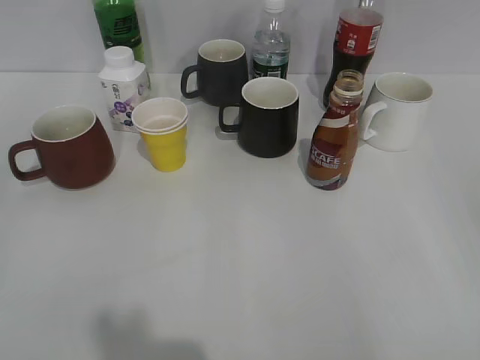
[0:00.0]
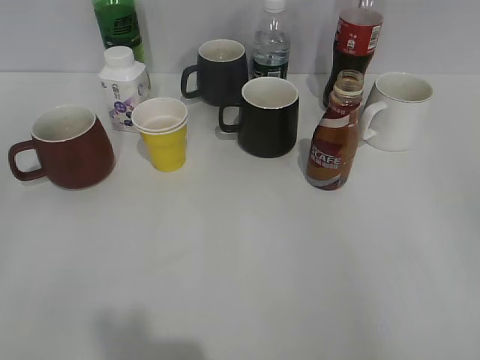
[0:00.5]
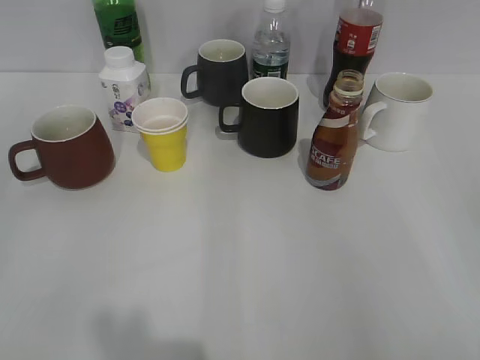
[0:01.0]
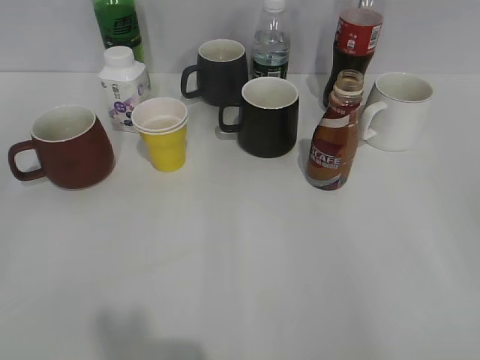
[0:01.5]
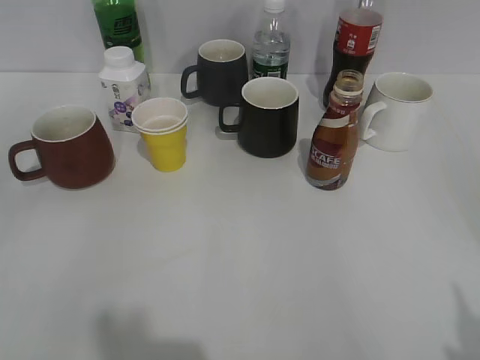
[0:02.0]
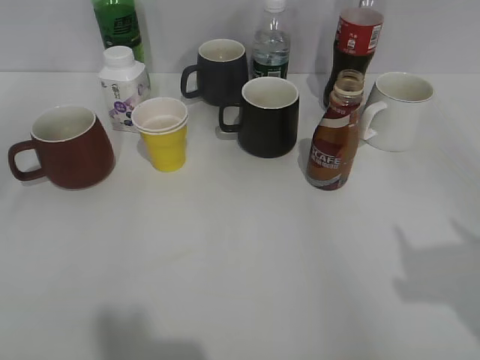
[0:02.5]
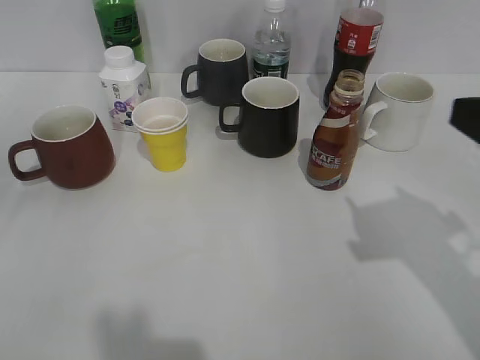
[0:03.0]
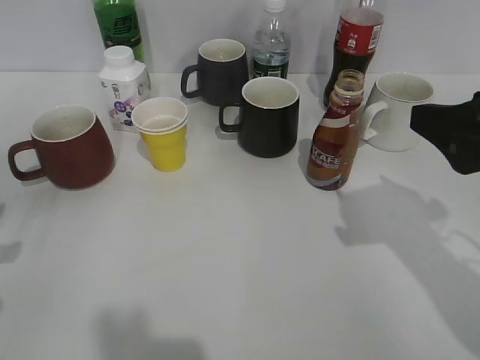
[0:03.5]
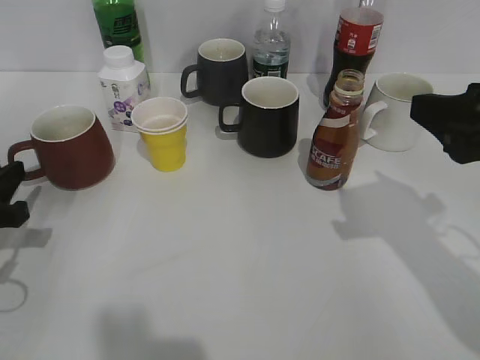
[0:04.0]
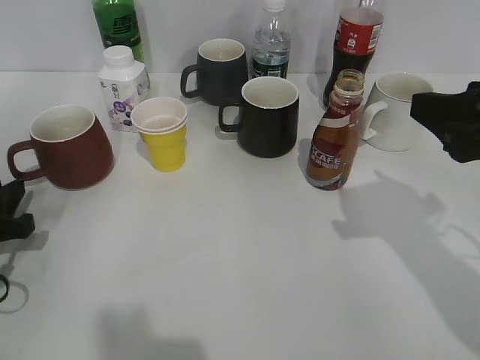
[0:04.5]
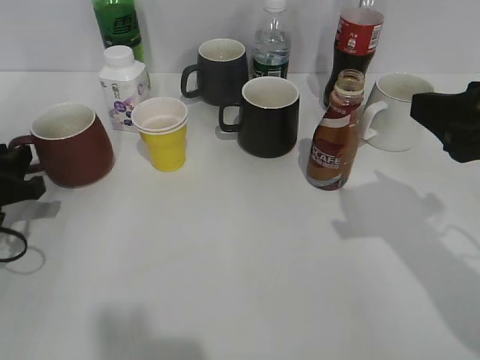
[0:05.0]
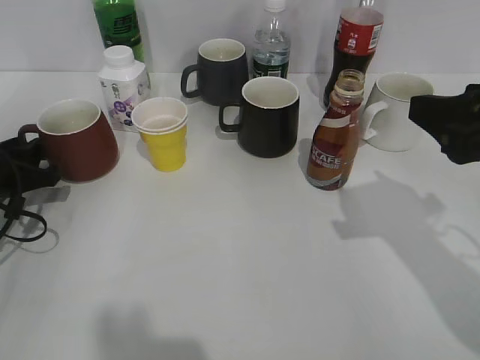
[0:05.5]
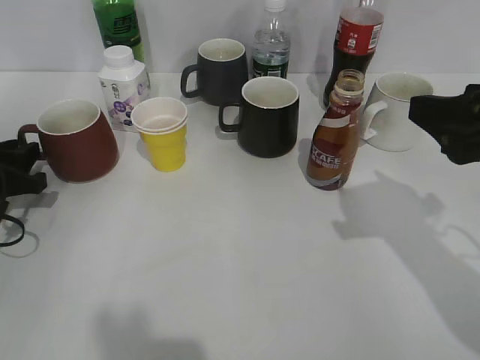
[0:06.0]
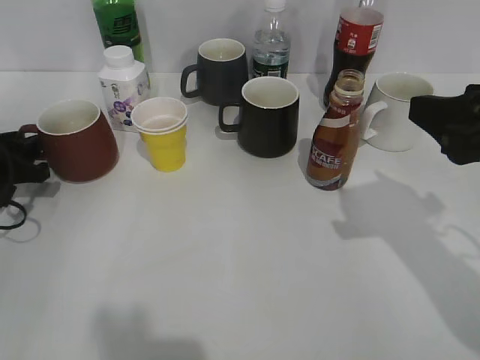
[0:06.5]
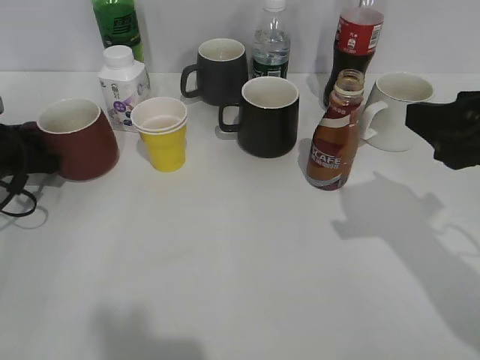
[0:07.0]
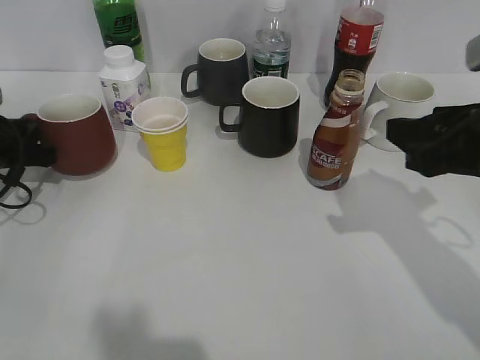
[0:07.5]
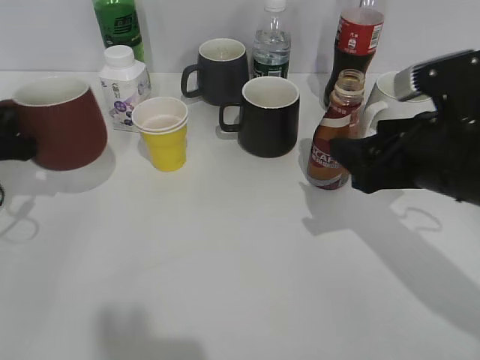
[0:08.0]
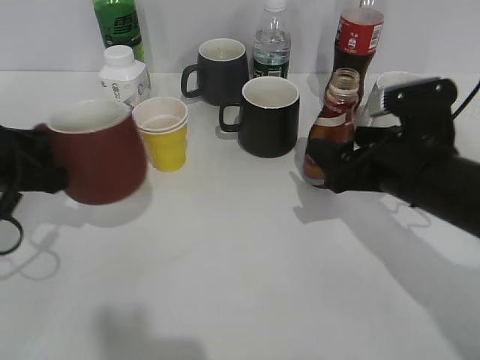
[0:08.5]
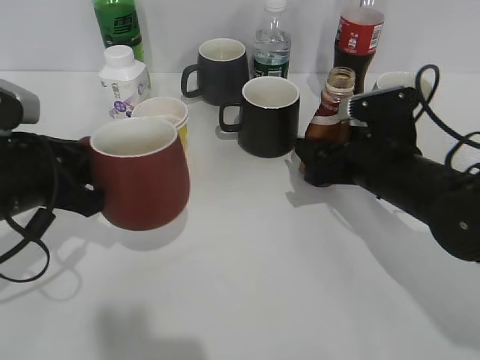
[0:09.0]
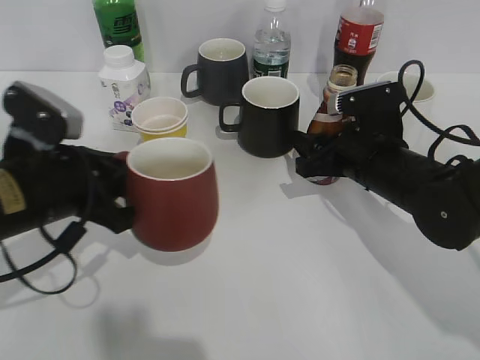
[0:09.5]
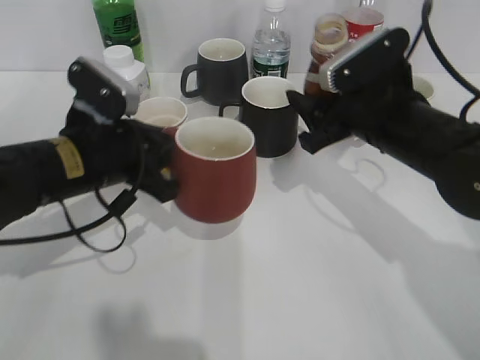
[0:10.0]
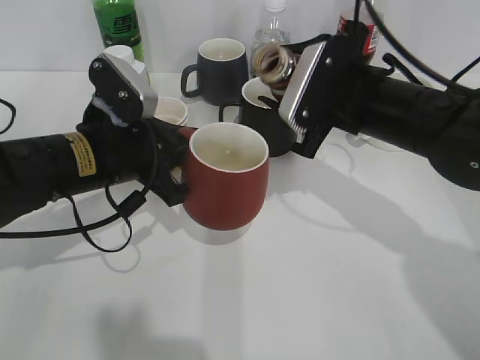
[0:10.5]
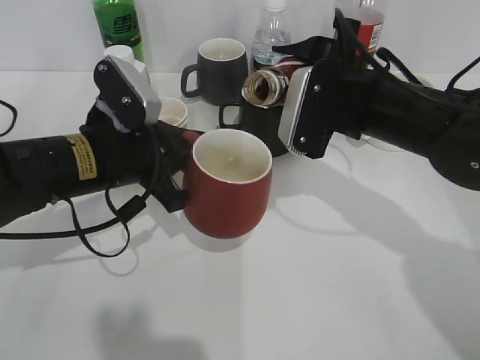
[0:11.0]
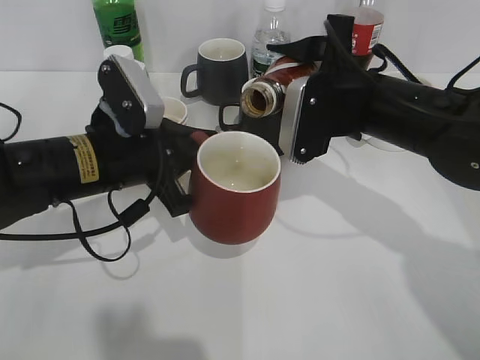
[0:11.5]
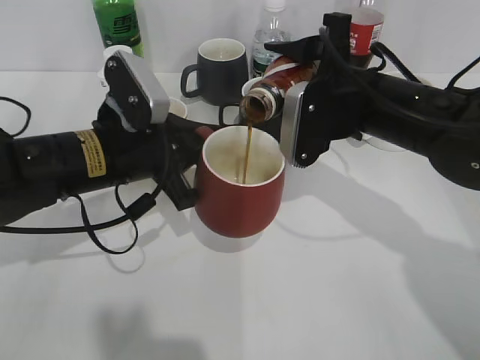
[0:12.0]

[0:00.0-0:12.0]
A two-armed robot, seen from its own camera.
Step, 0:02.0 to 0:07.5: Grasp the red cup with left gripper.
Step, 0:08.0 to 0:09.0: Grasp the bottle with coffee with right gripper.
0:02.0 to 0:04.0: The left gripper heads forward and downward, covering some 25 cm, while the right gripper heads forward and to the left, covering approximately 20 cm, and closes.
0:04.0 to 0:06.0: The left gripper moves forward, some 5 cm.
0:06.0 to 0:08.0: The left gripper travels upward by about 5 cm, and closes up. Meanwhile the right gripper goes approximately 5 cm downward, and opens.
0:08.0 to 0:10.0: The left gripper shifts approximately 15 cm to the right, while the right gripper goes roughly 5 cm forward, goes downward and returns, about 10 cm each way, and closes.

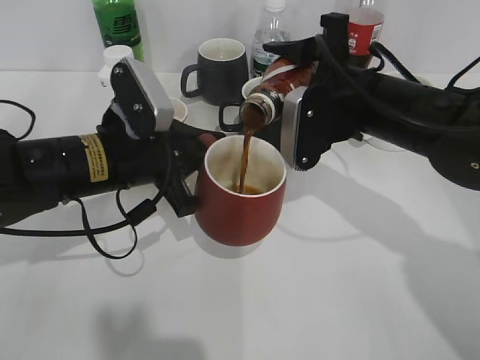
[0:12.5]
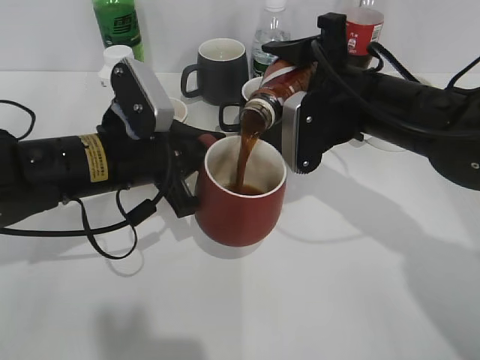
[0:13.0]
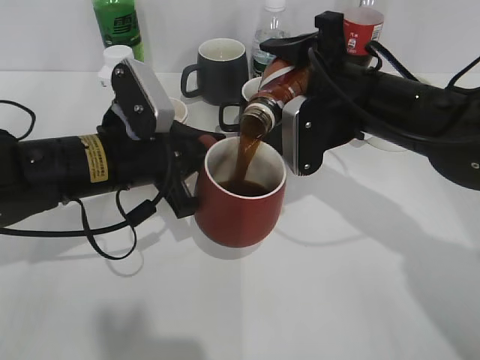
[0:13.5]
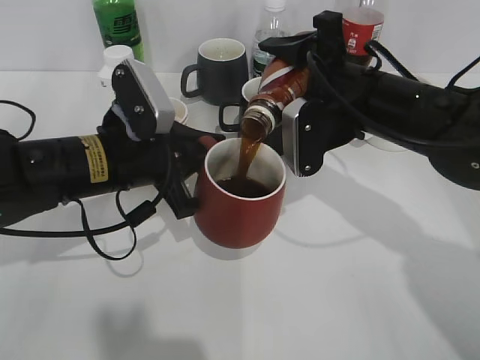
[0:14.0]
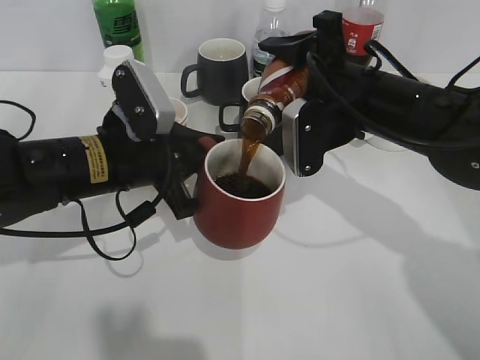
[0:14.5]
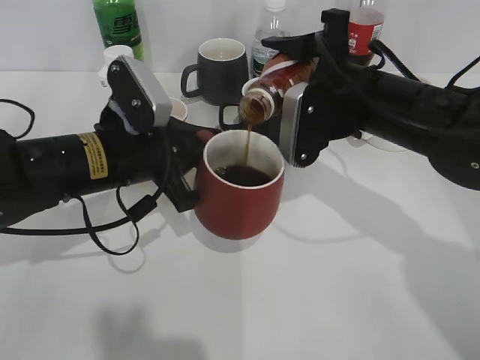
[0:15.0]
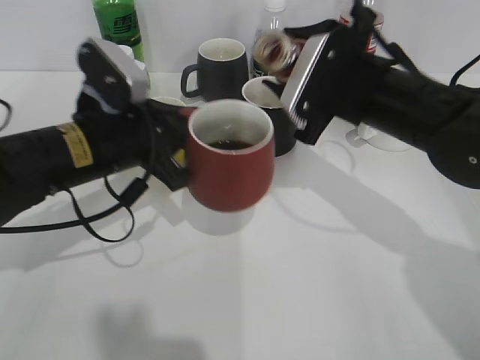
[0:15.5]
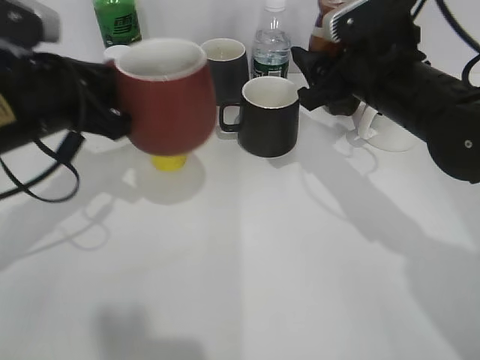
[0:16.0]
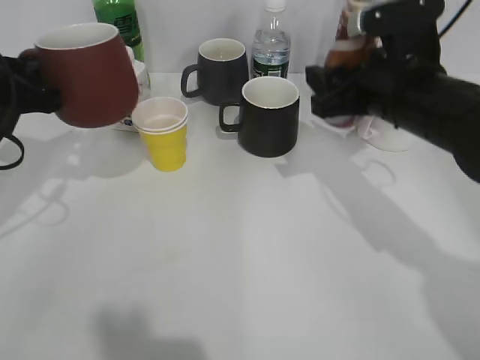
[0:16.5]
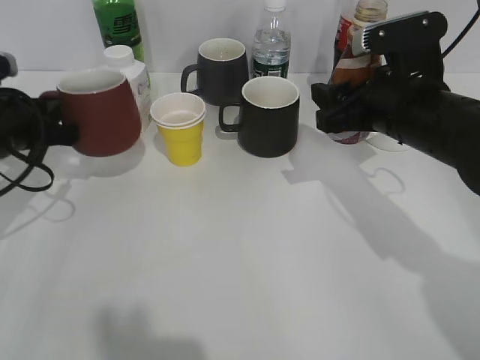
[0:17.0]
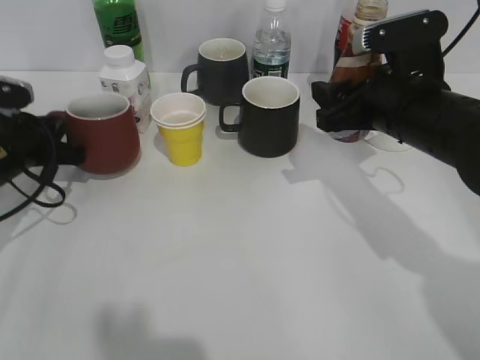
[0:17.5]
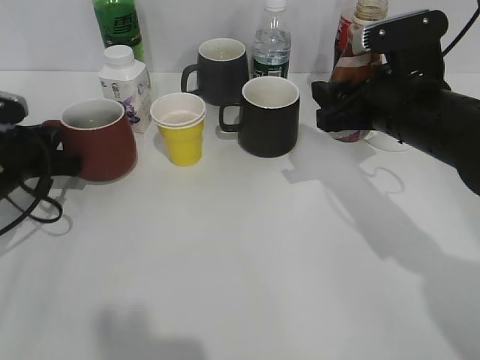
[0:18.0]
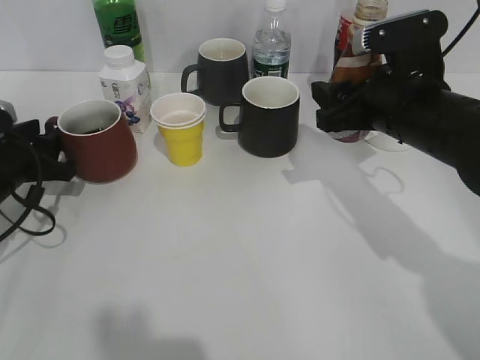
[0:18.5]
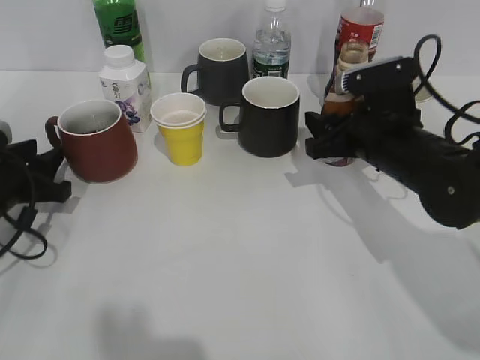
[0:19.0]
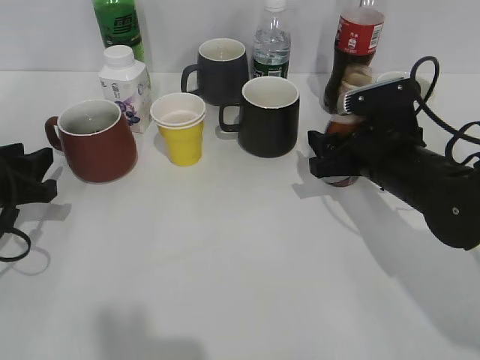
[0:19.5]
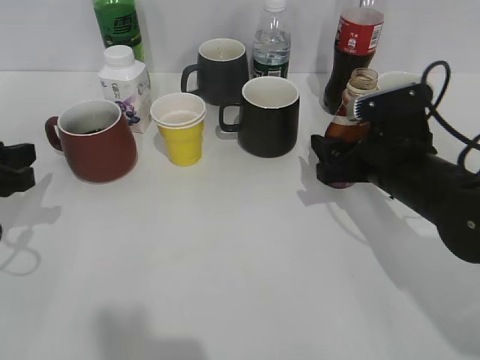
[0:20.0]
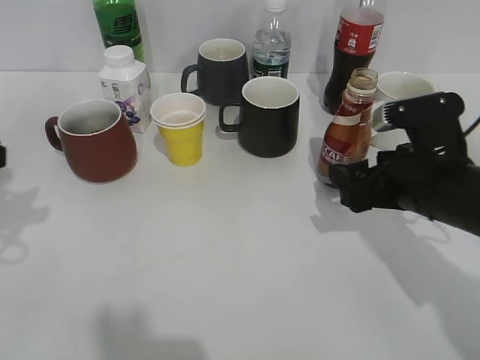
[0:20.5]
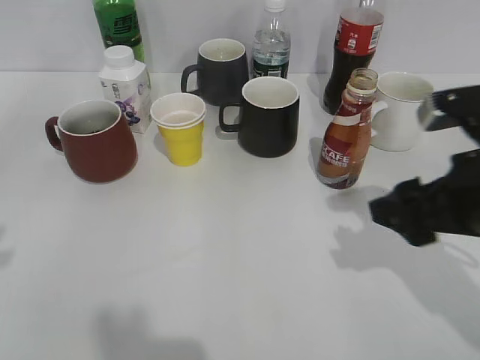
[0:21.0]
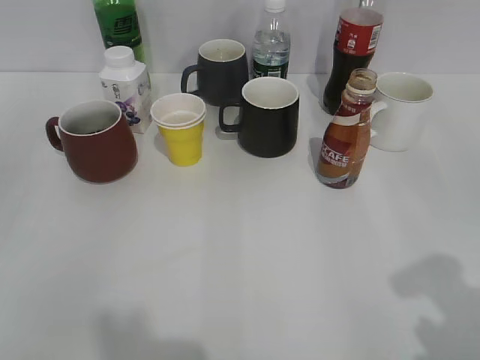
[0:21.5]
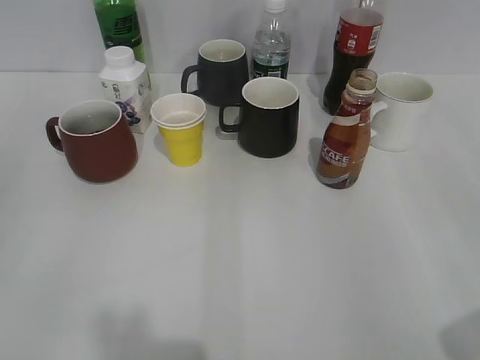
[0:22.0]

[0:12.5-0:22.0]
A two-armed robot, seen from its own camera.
Step, 0:12.5 to 0:15.0: Pour the coffee from bottle to cup with right gripper.
Step, 0:15.5 to 0:18.5: Place the red cup on the table with left gripper.
Step, 0:19.0 to 0:20.0: Place the coffee bottle on the table with right gripper.
0:12.5 to 0:14.5: The grippers stay close to where they were, moving slightly.
0:14.5 to 0:16.5: The left gripper moves to the left and upward, approximately 15 cm.
0:16.5 to 0:18.0: The left gripper shifts about 10 cm downward.
0:18.0 to 0:20.0: The left gripper moves backward and upward, about 10 cm, and opens up. The right gripper shifts approximately 5 cm downward, and opens.
0:20.0 to 0:22.0: The left gripper travels backward and upward by about 25 cm, while the right gripper travels backward, upward and to the right by some 35 cm.

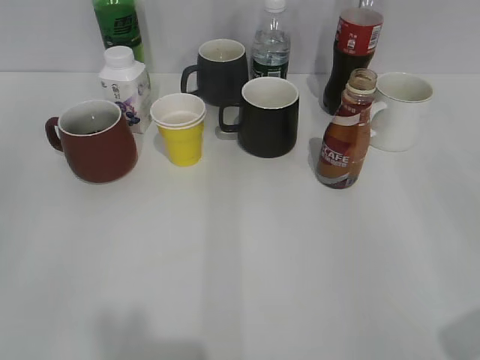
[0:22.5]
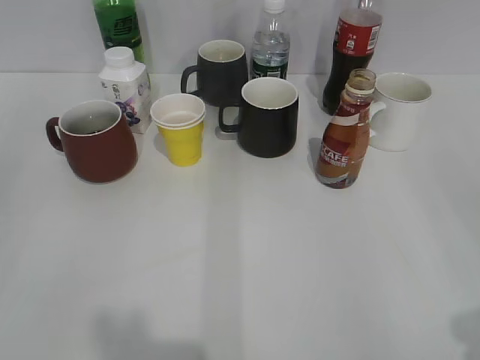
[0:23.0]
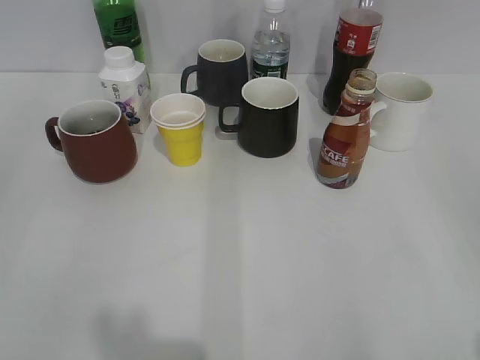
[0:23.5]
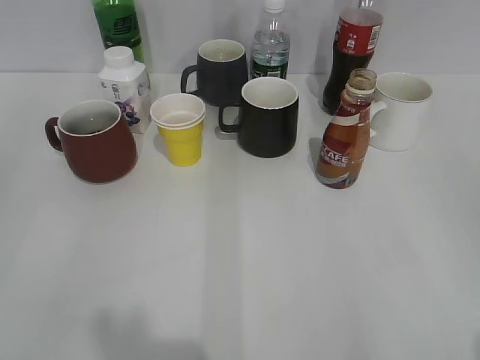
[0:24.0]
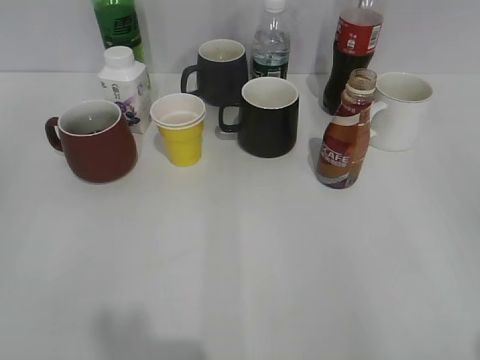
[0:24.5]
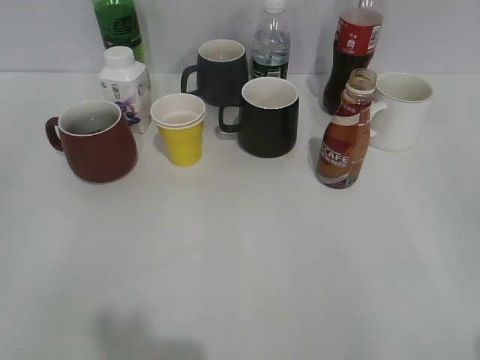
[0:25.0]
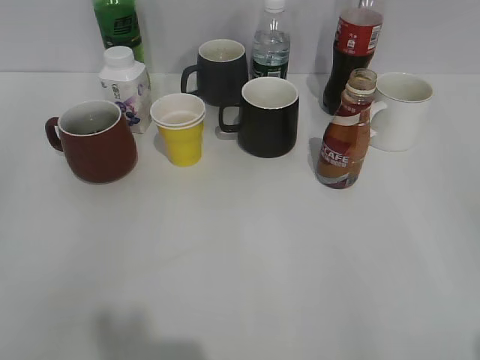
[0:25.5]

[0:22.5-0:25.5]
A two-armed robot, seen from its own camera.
0:24.0 to 0:25.5: The two grippers keep their place.
